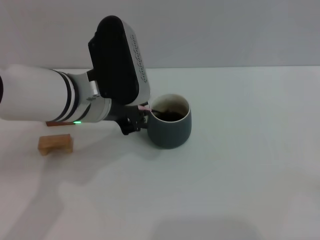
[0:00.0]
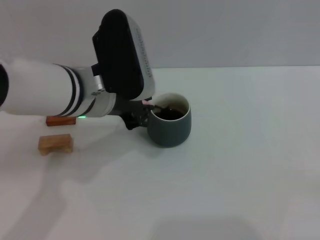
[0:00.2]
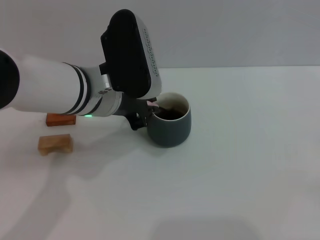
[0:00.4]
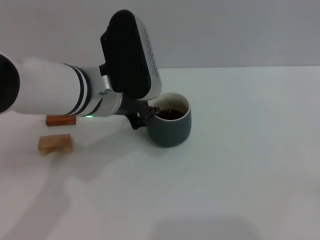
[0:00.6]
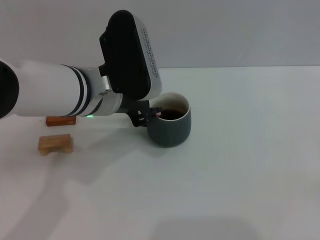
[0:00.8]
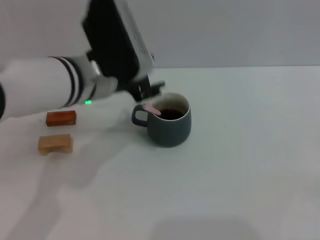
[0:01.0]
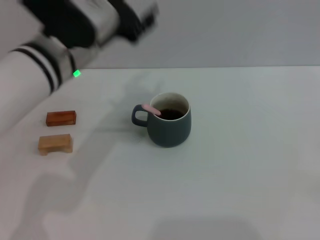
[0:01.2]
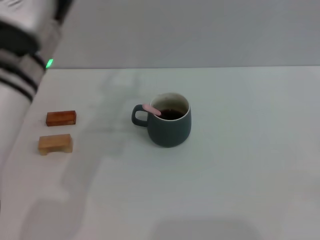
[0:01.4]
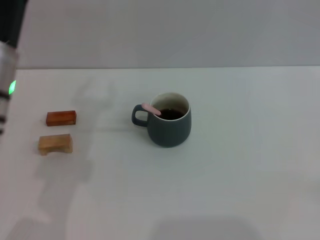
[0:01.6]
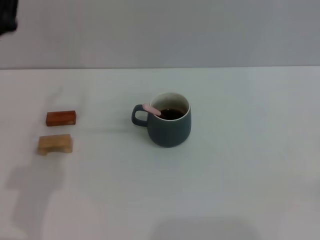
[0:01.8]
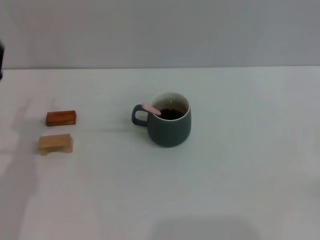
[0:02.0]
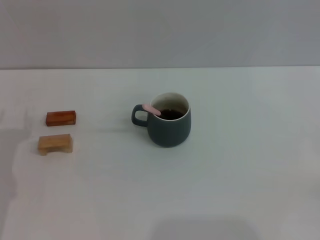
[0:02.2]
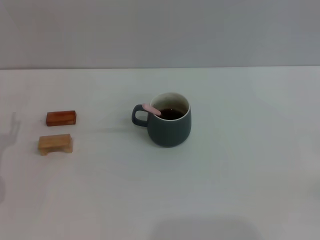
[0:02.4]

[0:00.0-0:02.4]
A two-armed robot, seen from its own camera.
Task of the whole recording: Move the grey cup to the center, lift the pink spoon, stir it three times in the cup, and put the spoon into the cup.
0:00.0 to 0:01.2: The left gripper opens its fingers.
0:01.2 to 0:02.4: The left gripper moves to the left, downward and backward, approximately 25 cm.

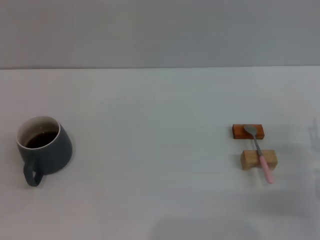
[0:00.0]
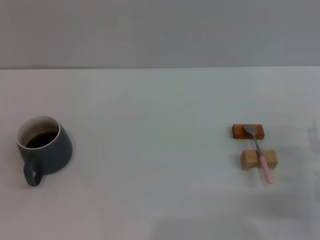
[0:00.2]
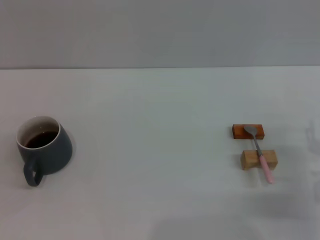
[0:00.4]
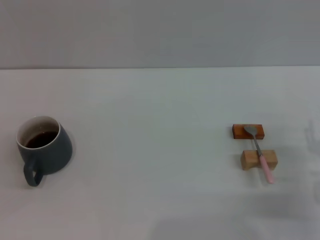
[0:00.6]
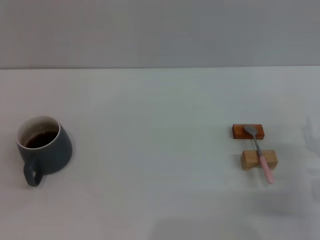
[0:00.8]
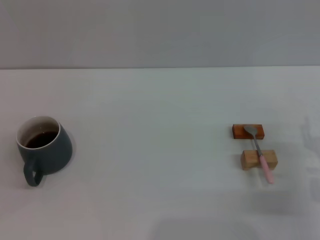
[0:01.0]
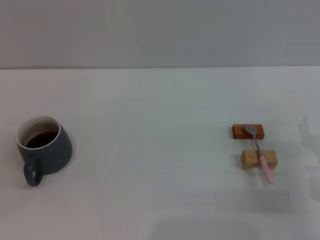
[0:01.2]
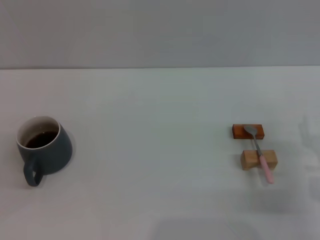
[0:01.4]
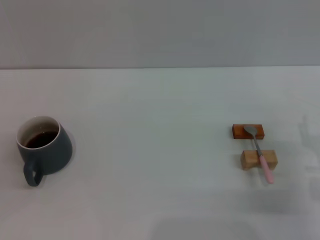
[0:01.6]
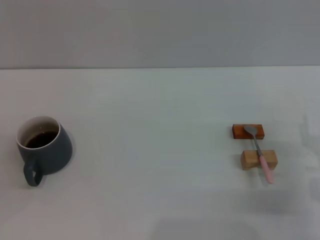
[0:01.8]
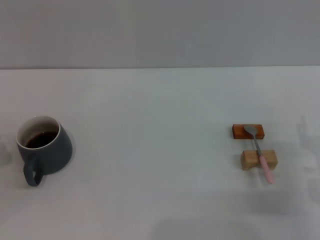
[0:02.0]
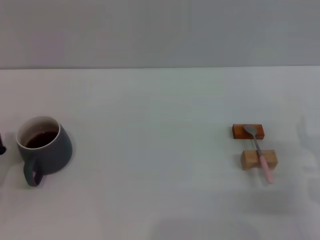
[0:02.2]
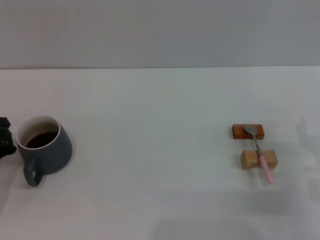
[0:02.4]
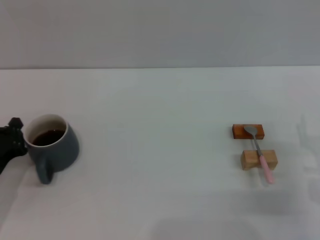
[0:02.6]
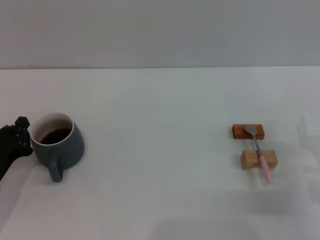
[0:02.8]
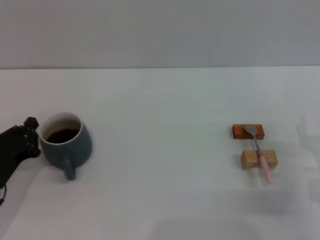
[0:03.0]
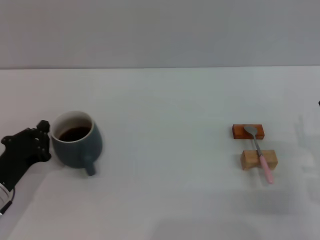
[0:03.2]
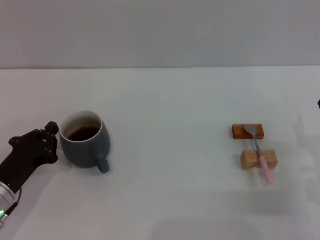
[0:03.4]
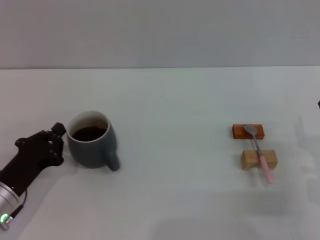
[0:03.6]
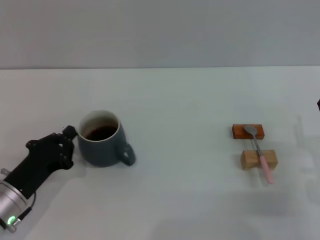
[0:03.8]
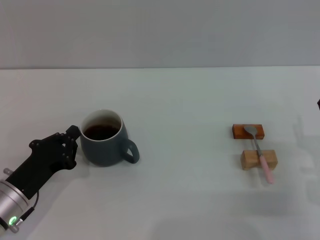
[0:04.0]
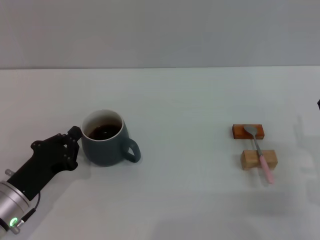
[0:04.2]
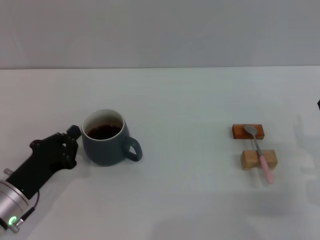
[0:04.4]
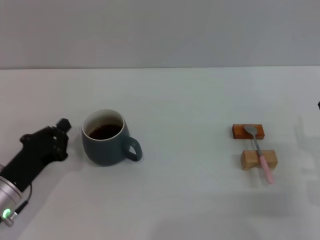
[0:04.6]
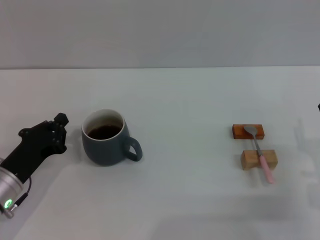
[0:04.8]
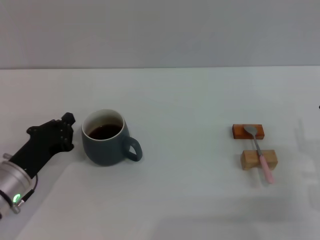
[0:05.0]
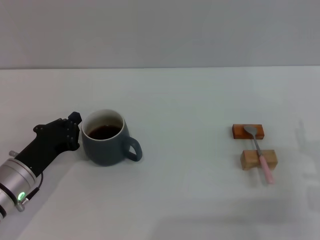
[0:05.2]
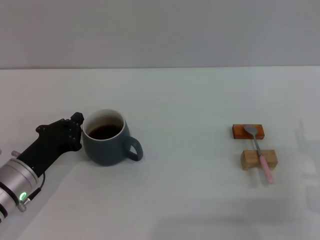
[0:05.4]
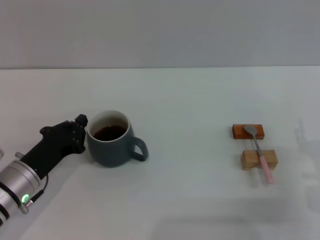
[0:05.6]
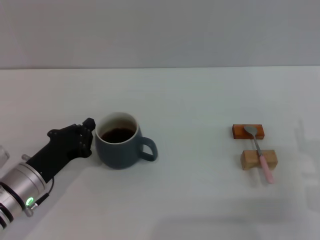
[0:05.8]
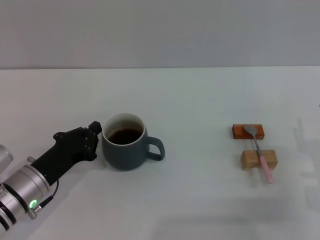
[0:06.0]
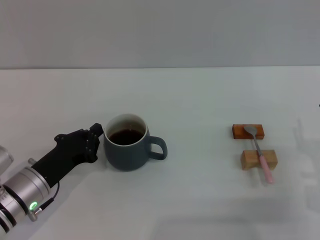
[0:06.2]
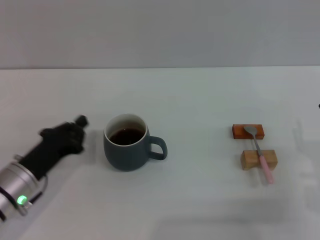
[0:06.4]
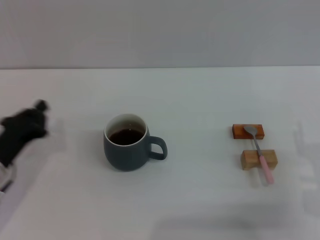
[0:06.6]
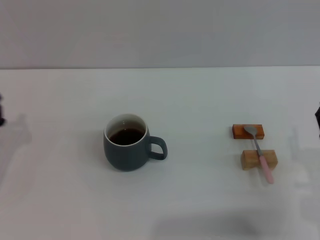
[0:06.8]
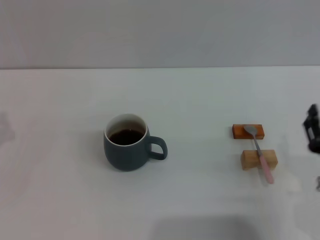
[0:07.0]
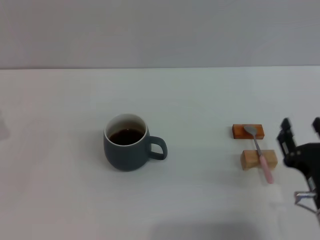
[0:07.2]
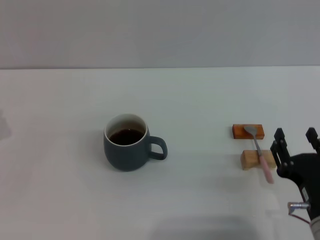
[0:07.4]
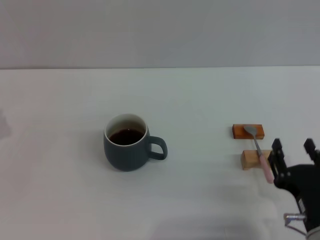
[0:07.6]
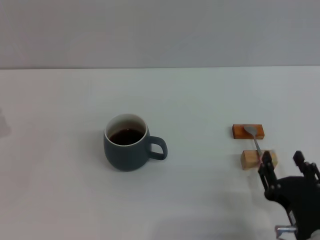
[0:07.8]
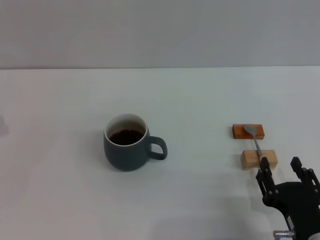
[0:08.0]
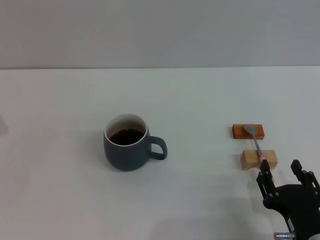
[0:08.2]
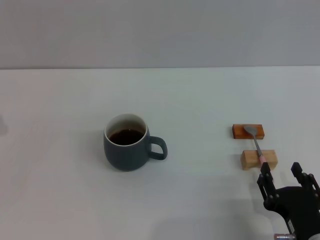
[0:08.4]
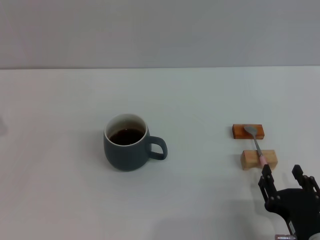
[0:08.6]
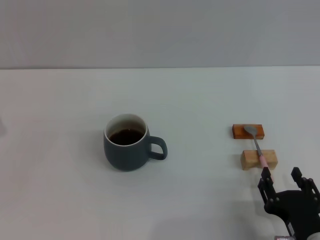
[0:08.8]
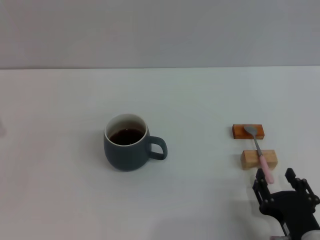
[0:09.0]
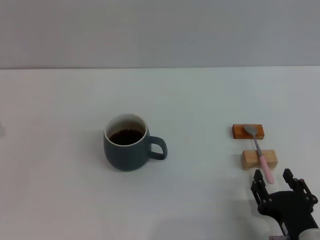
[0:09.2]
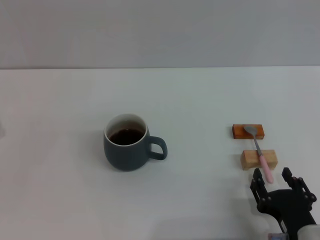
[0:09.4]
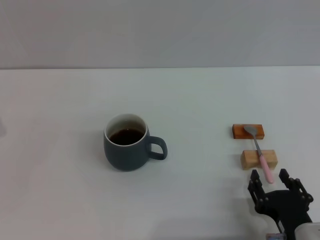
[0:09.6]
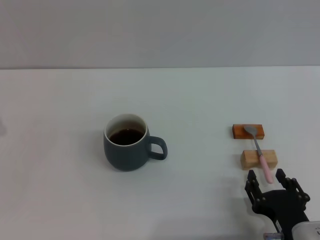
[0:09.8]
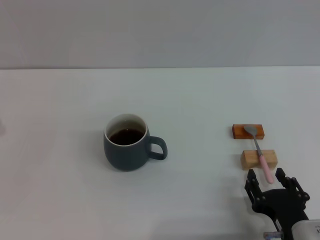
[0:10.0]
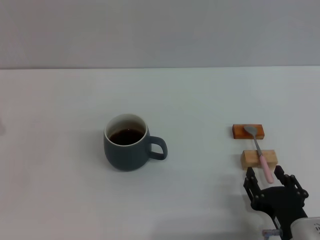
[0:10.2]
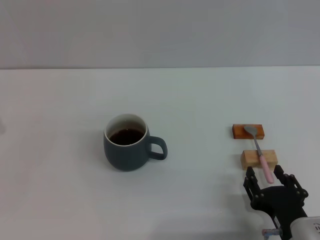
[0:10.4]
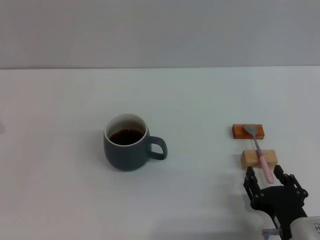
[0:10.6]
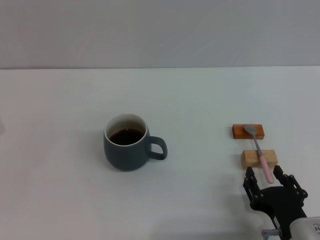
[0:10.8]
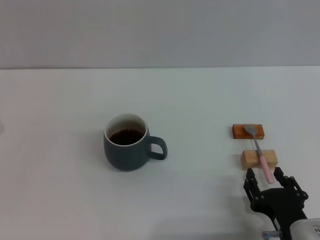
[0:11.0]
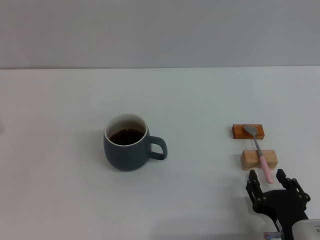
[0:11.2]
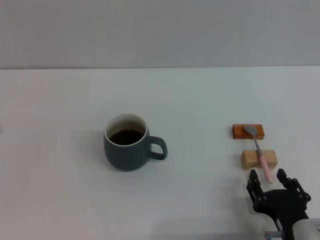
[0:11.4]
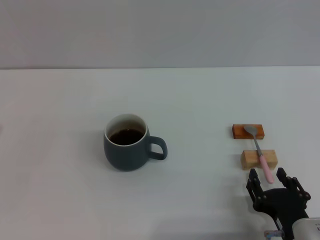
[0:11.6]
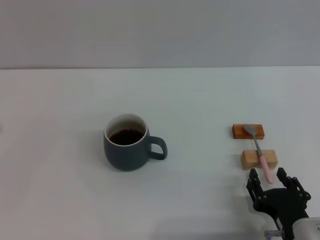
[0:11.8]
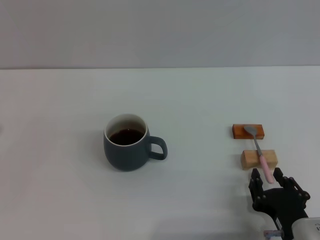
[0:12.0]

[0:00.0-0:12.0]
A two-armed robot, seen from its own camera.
Task of the whole recording: Move the grey cup to the center, lift the pink spoon, stir it three times in the cup, and put the spoon into the cup.
Step, 0:00.0 to 0:06.2: Move the cup with coffee to the center of view with the left gripper.
0:01.6 to 0:03.0: The left gripper shifts some 5 cm to the right.
0:03.0 to 0:04.4: The grippers make only small movements.
0:04.4 to 0:06.0: There are only small adjustments of the grippers.
0:06.0 to 0:07.6: The left gripper moves to the left, some 15 cm, while the right gripper moves backward and to the left, about 10 cm.
0:07.6 to 0:10.4: The grippers stay close to where they were, moving slightly.
0:10.4 to 0:12.0: Both grippers stay about where they are.

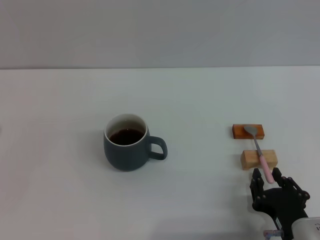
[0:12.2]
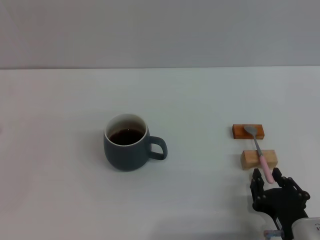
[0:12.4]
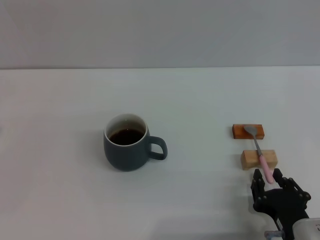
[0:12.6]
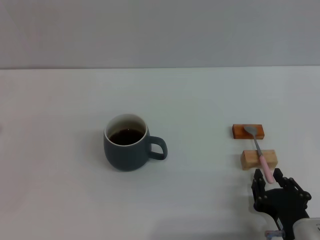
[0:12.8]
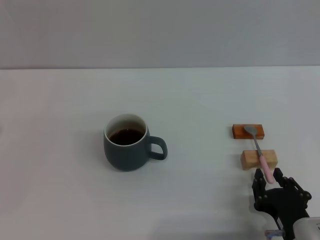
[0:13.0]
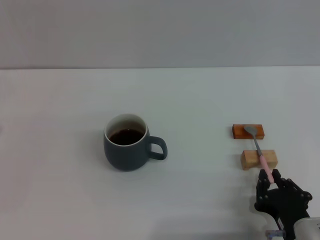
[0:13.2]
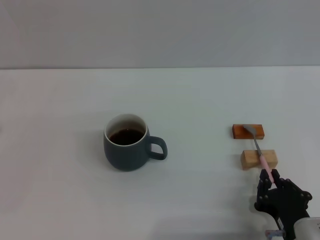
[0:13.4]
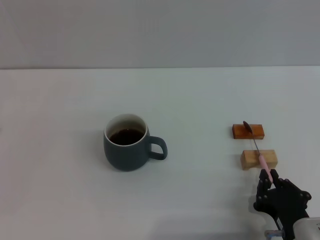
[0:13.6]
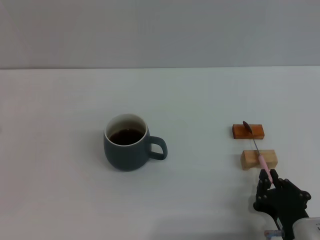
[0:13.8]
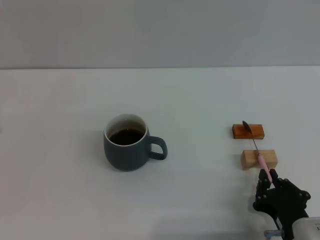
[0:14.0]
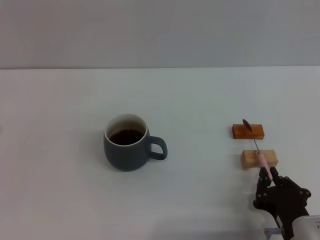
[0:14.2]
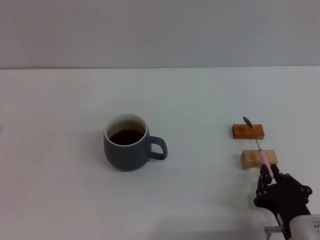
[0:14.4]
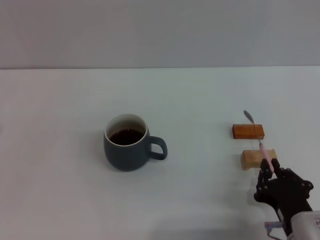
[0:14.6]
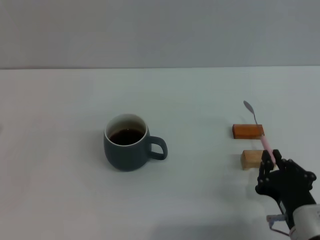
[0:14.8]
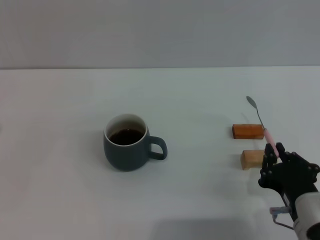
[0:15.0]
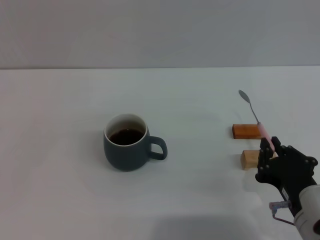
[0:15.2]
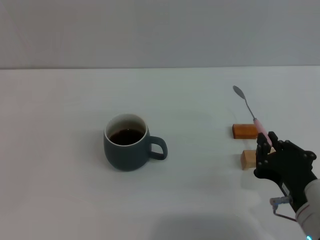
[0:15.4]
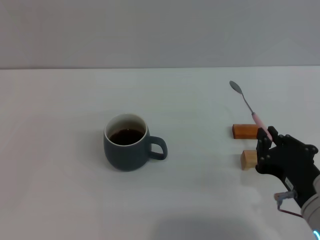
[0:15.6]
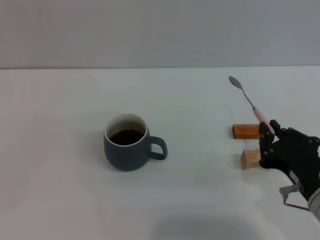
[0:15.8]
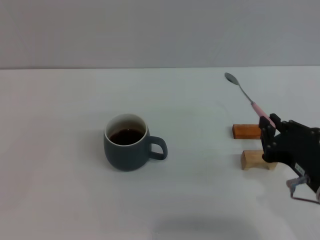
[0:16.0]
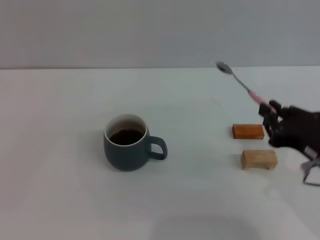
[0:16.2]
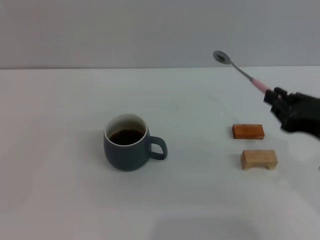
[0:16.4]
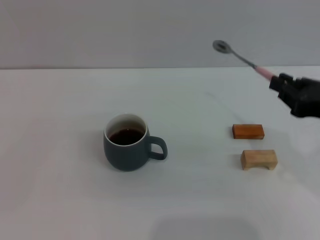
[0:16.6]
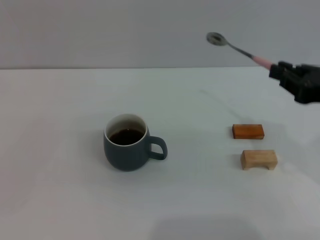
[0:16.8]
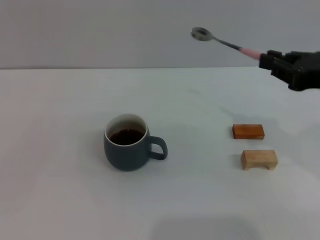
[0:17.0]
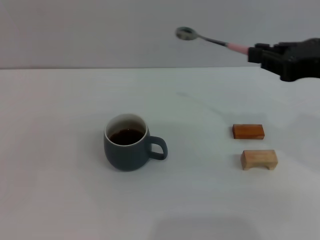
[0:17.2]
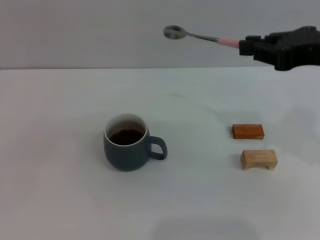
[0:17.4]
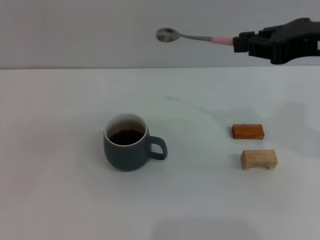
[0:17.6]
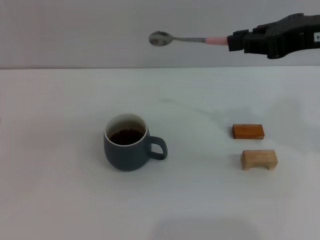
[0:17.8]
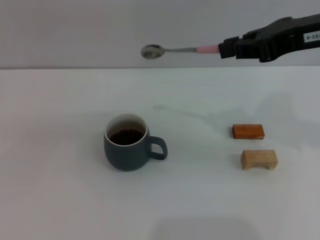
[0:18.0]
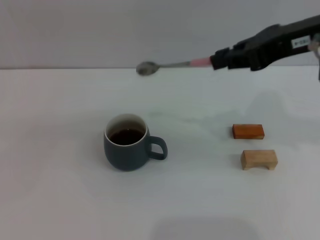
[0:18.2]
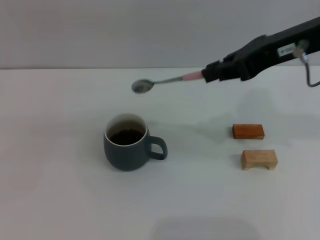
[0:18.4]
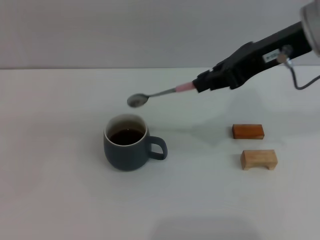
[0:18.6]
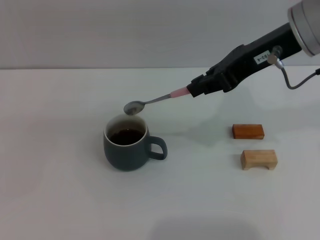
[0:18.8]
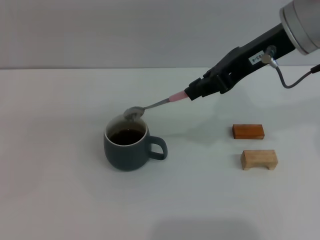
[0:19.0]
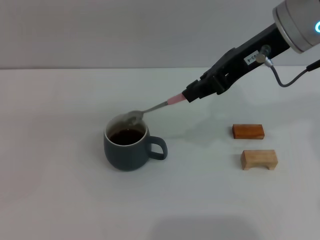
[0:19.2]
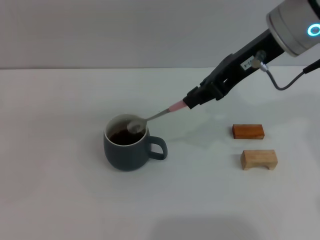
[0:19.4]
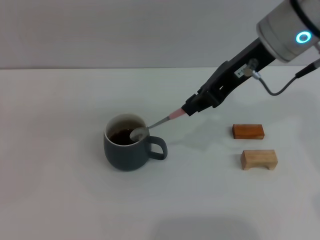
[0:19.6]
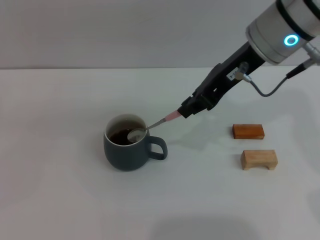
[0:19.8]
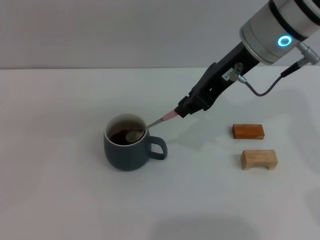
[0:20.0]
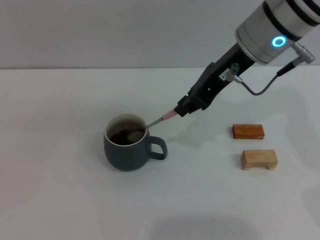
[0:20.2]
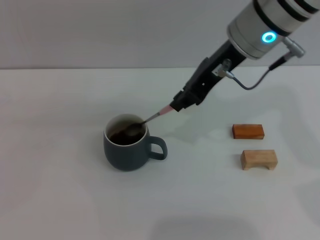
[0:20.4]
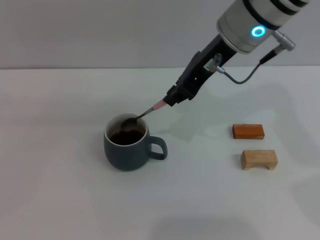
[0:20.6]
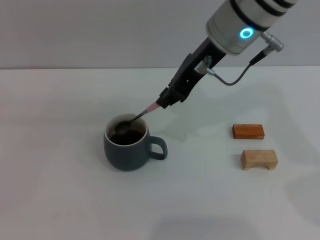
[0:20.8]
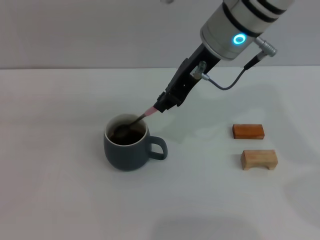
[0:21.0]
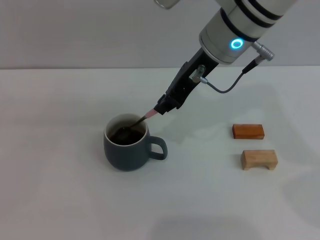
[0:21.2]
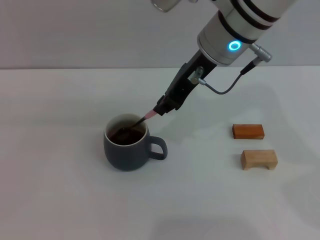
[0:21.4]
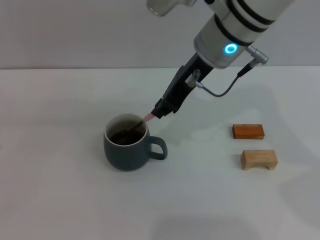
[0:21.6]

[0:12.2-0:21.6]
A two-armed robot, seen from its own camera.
Task of the whole recording: Move the grey cup to the center, lift the pink spoon, stir it three times in the cup, and put the spoon into the cup.
Step, 0:12.2 to 0:15.2: Pick up the spoon with the right gripper.
0:12.2 to 0:13.8: The right gripper closes up.
0:13.8 to 0:15.4: The right gripper travels upward by approximately 5 cm.
0:15.4 to 0:17.0: The right gripper is displaced upward, forward and to the right by about 20 cm.
0:17.0 to 0:18.4: The right gripper is displaced forward, to the left and upward by about 10 cm.
0:18.4 to 0:20.0: The right gripper heads to the left, covering approximately 5 cm.
0:20.0 to 0:21.6: The right gripper is displaced to the left by roughly 5 cm.
